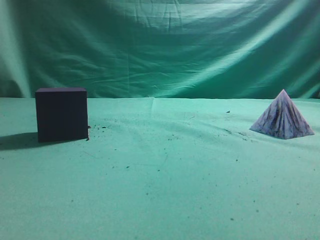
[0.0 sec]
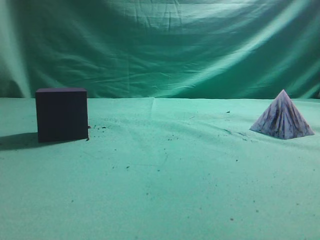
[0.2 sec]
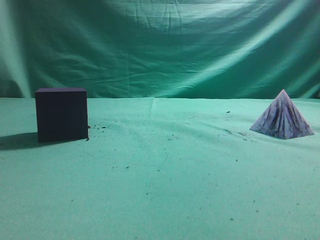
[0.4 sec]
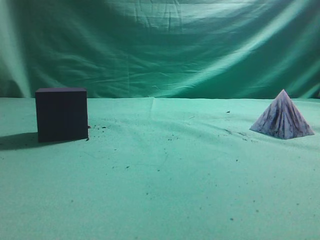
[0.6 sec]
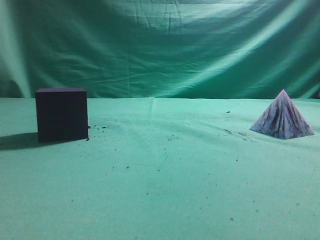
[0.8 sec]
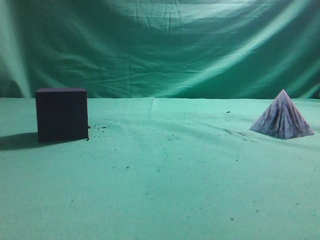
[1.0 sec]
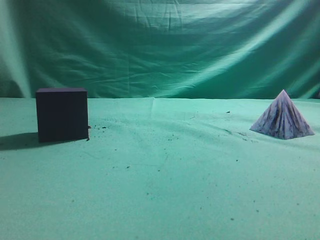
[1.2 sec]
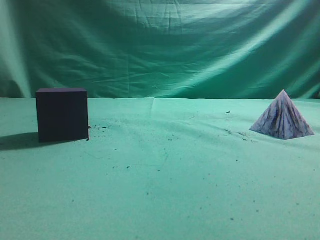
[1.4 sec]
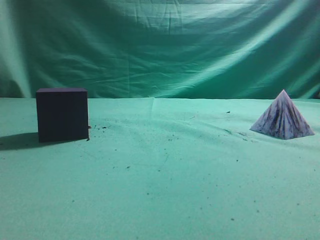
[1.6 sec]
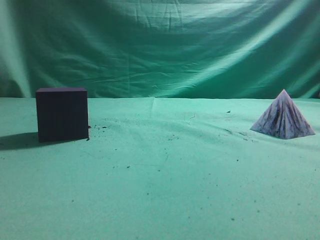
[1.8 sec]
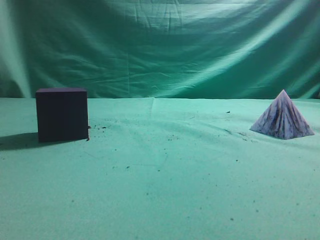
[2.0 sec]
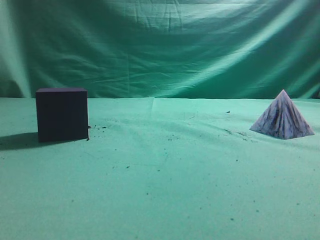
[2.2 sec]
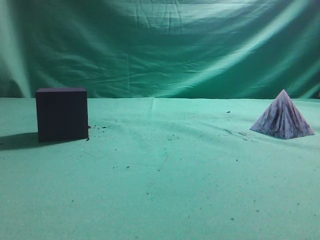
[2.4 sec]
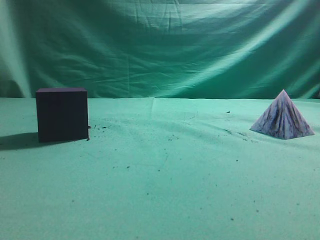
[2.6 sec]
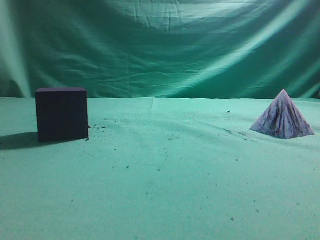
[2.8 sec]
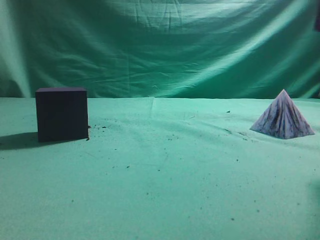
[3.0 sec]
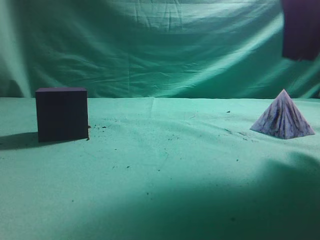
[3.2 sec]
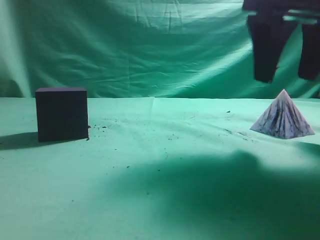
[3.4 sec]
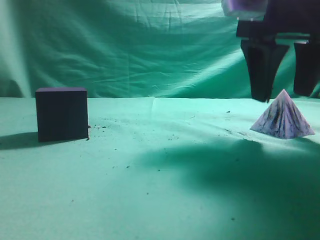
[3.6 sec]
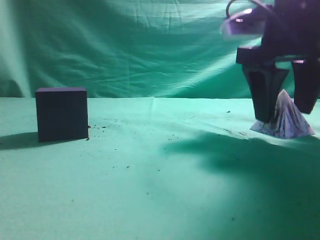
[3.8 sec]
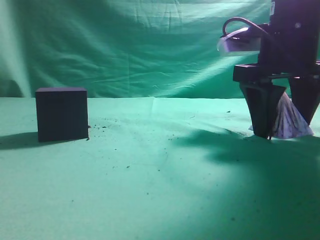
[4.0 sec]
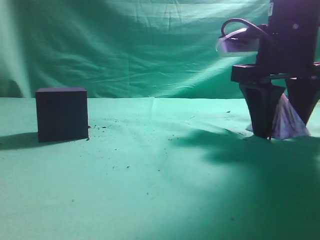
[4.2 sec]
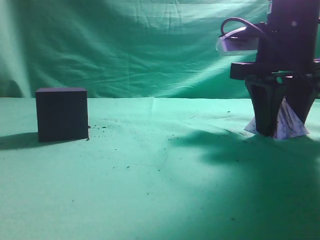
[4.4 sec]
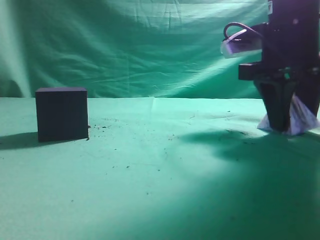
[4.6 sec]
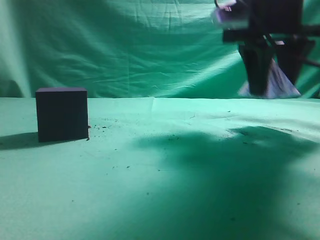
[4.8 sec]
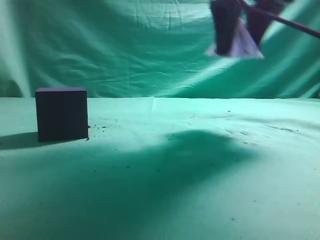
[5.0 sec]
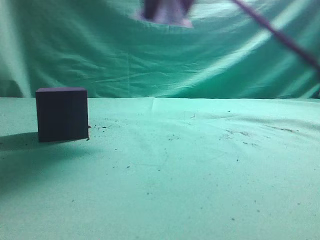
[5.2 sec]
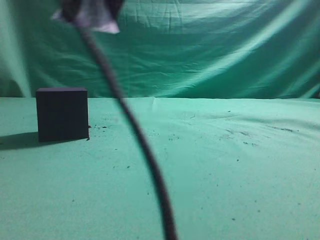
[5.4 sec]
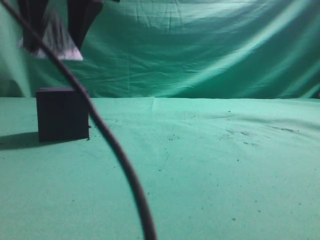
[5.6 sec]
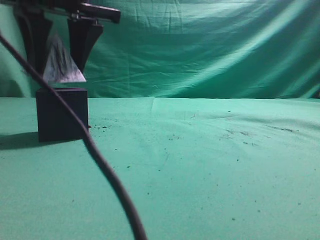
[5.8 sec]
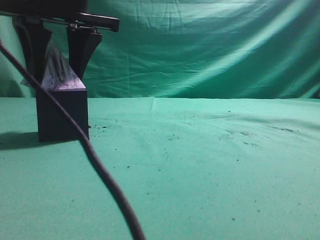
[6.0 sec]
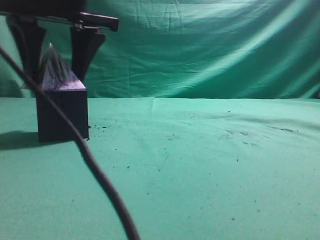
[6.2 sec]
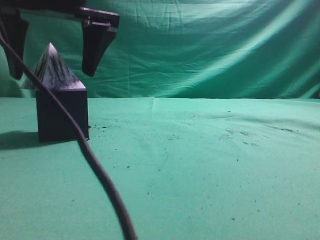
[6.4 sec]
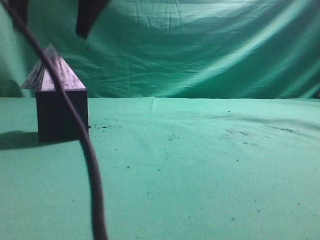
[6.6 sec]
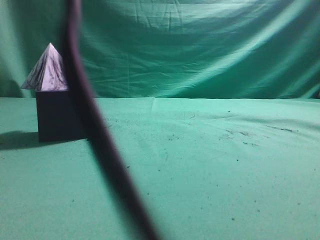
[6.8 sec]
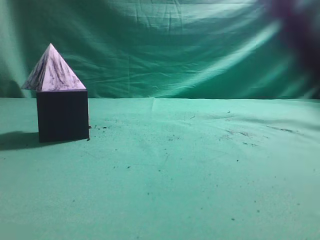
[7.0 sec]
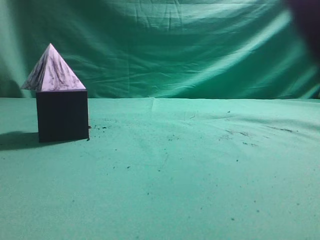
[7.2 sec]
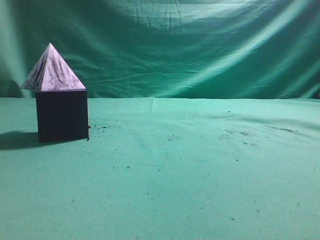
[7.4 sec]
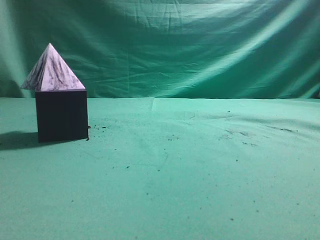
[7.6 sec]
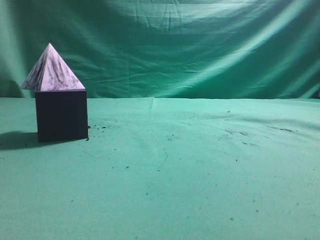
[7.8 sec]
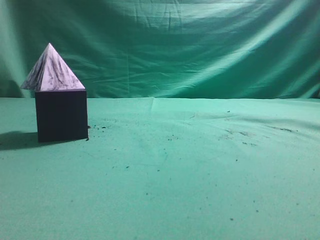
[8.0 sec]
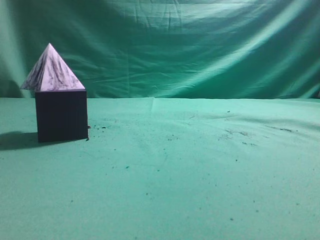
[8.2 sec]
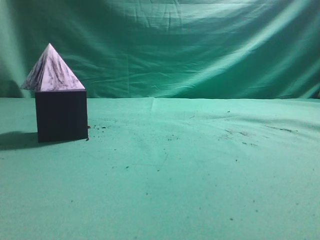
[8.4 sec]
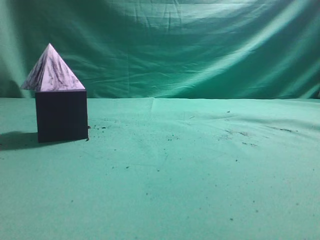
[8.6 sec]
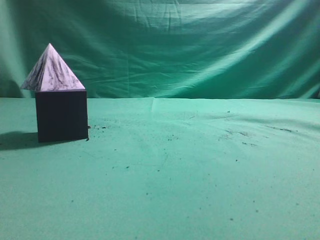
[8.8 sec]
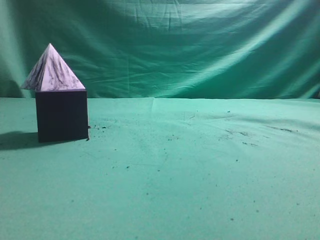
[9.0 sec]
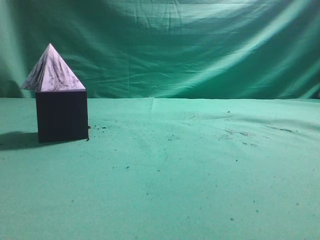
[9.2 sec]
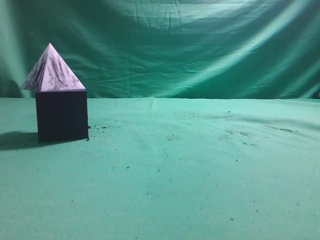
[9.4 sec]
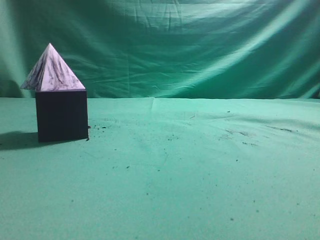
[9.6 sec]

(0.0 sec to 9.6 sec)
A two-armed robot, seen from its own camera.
Task of the whole recording: pick up the square pyramid from the table and place it on the cube block.
Step, 0.0 sec - 4.8 sec: Grasp the triangular block.
Step, 5.0 sec - 6.4 sec: Place the block onto the cube-shaped block.
1.6 sec - 3.2 sec: The right gripper shifts some 25 cm forward and to the left.
3.2 sec - 4.8 sec: The right gripper travels forward by approximately 10 cm.
4.8 sec - 6.4 sec: The right gripper goes some 25 cm to the left, and opens its fingers.
6.4 sec - 8.0 sec: The right gripper moves to the right, backward and upward, about 50 cm, and closes.
